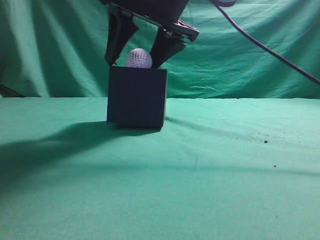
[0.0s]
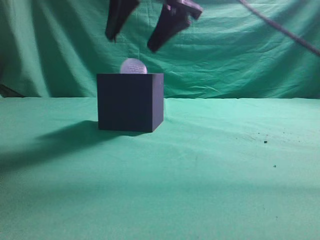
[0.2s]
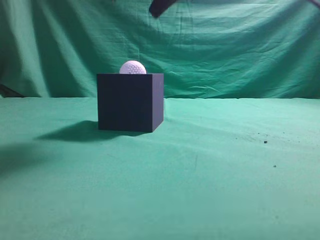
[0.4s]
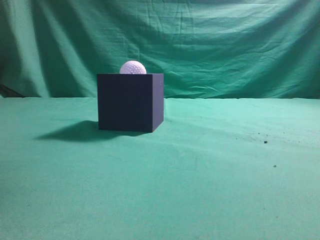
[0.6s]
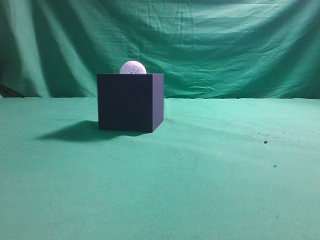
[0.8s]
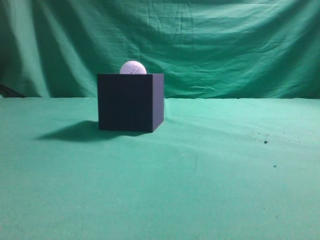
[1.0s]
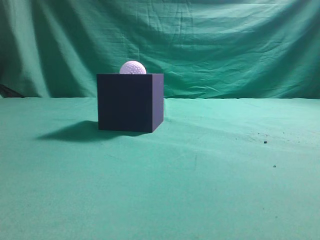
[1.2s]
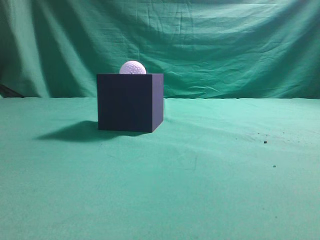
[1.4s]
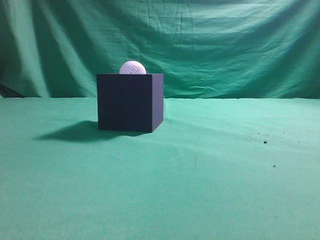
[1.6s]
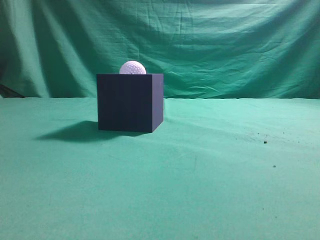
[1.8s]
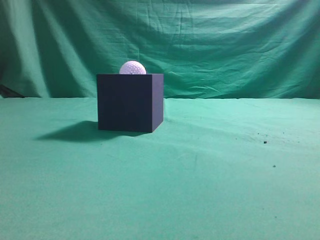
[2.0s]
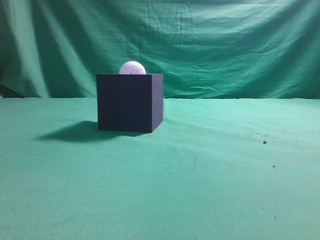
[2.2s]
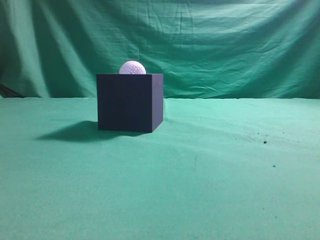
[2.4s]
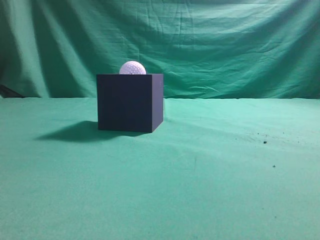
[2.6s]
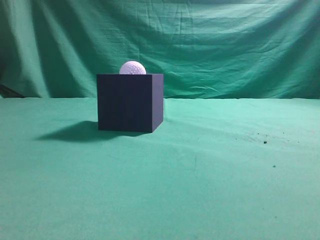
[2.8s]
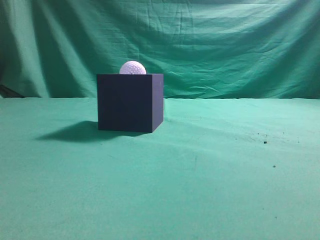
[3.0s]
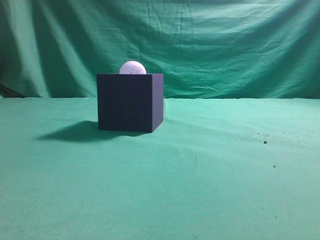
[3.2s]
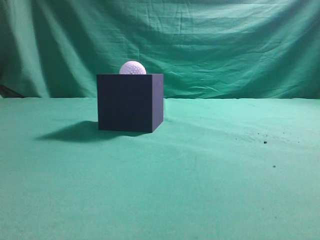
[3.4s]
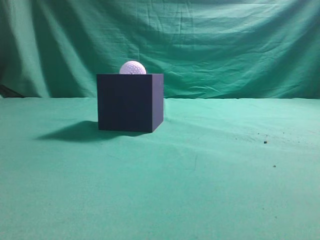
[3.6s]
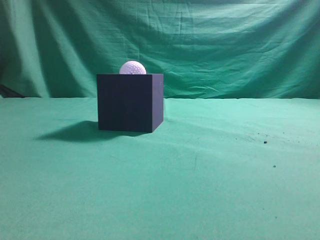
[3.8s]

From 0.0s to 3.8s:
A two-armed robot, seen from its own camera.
Task of the whole recording: Pick up the ball and place it in the circular groove above the cube.
From 0.0s to 1.2s: The right gripper heads upward, backward and to the right, covering some 25 cm, and closes its fingers.
